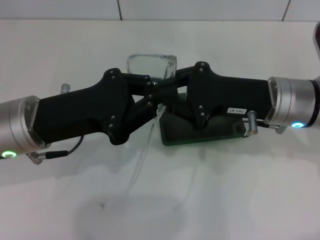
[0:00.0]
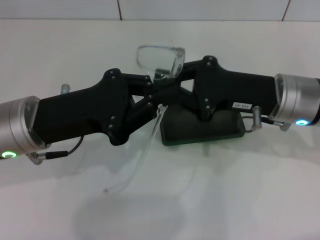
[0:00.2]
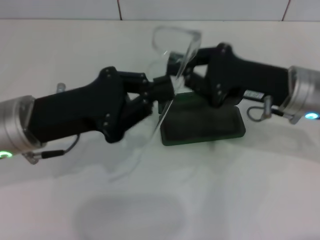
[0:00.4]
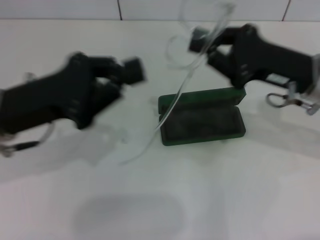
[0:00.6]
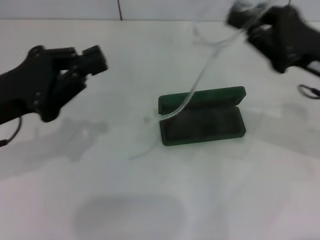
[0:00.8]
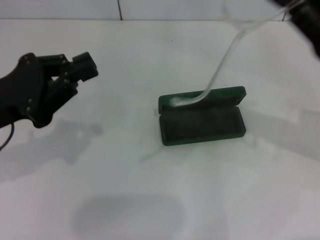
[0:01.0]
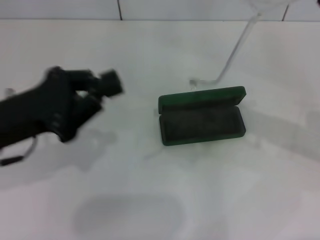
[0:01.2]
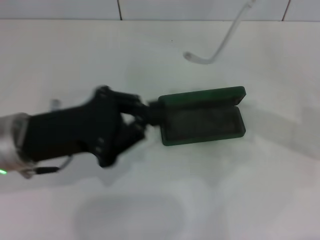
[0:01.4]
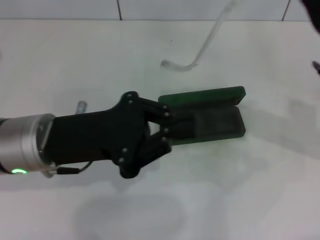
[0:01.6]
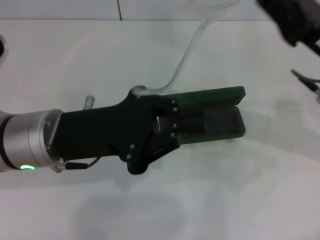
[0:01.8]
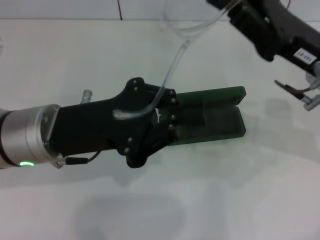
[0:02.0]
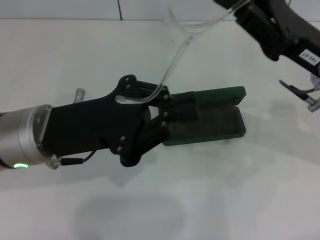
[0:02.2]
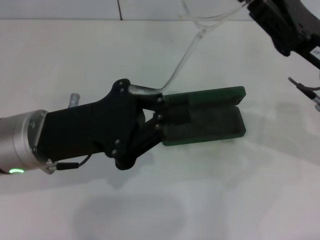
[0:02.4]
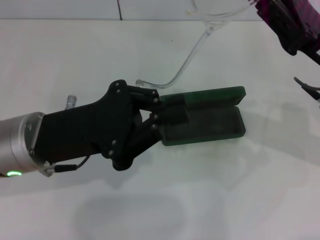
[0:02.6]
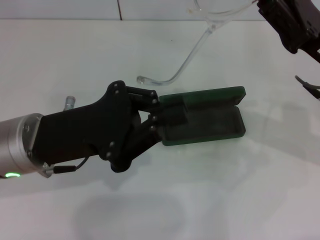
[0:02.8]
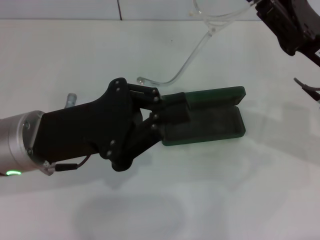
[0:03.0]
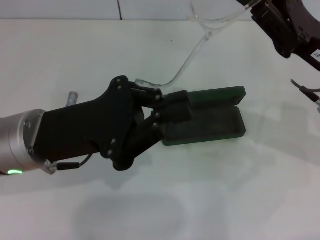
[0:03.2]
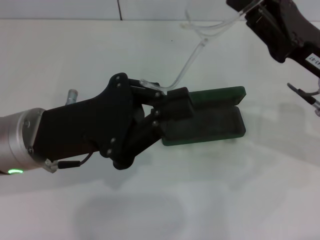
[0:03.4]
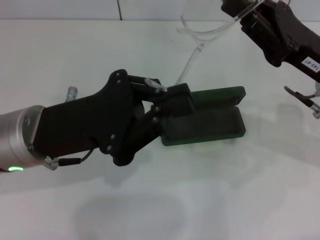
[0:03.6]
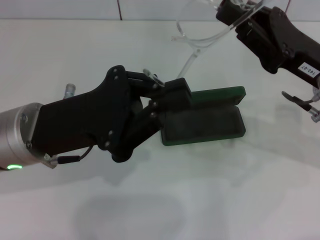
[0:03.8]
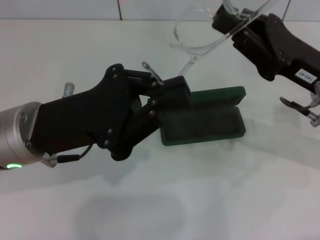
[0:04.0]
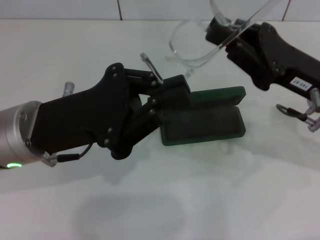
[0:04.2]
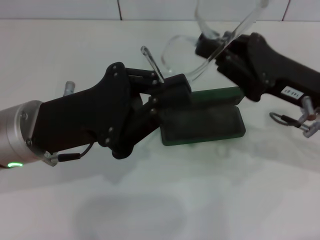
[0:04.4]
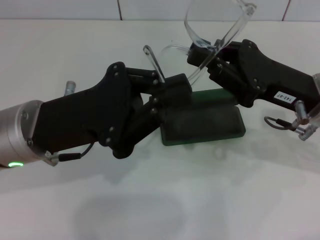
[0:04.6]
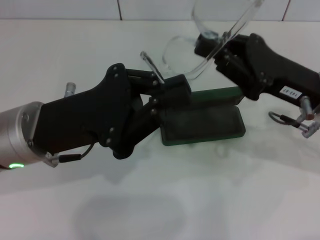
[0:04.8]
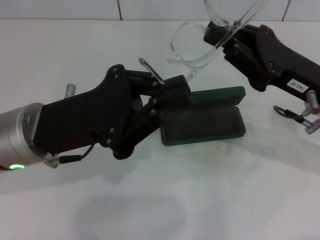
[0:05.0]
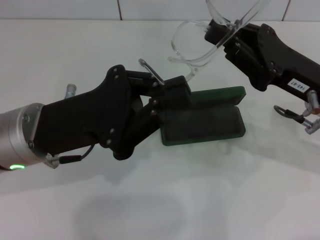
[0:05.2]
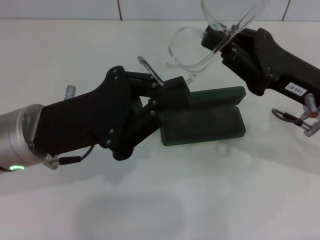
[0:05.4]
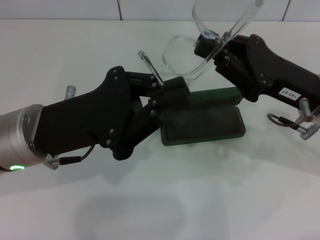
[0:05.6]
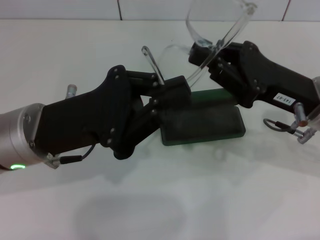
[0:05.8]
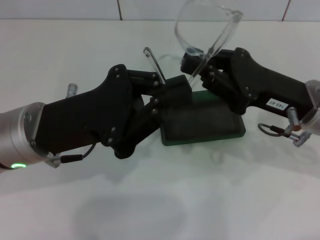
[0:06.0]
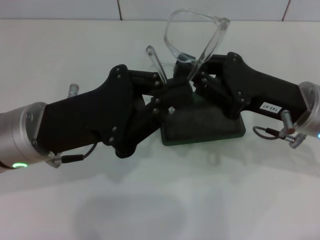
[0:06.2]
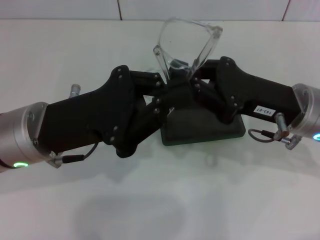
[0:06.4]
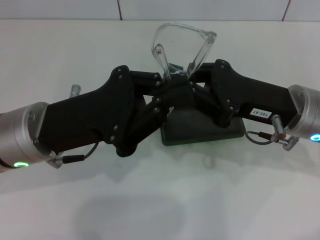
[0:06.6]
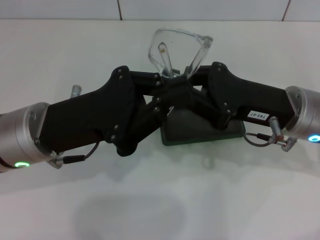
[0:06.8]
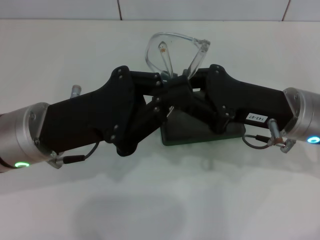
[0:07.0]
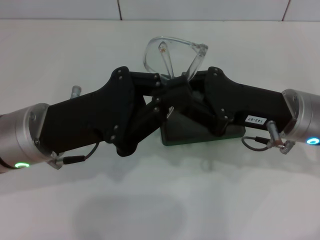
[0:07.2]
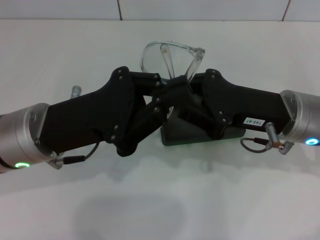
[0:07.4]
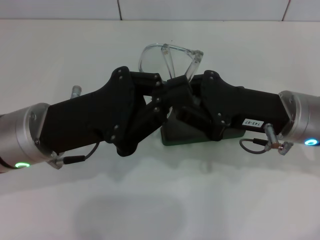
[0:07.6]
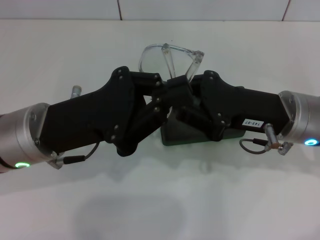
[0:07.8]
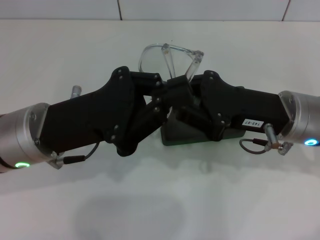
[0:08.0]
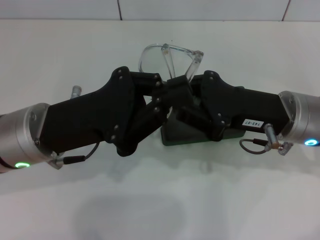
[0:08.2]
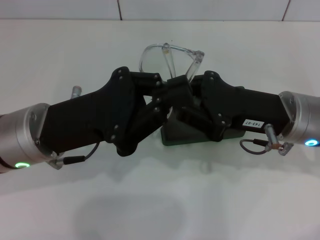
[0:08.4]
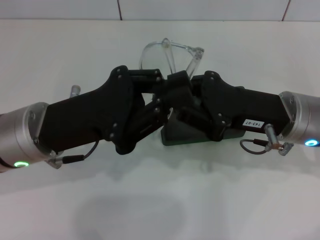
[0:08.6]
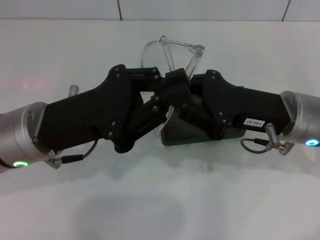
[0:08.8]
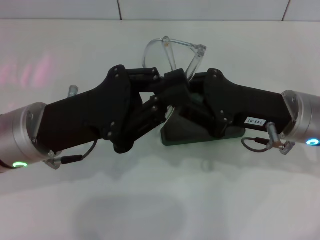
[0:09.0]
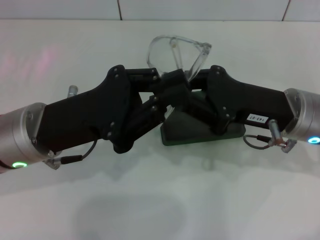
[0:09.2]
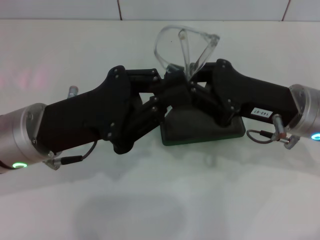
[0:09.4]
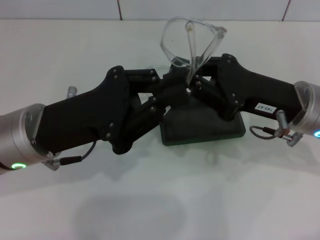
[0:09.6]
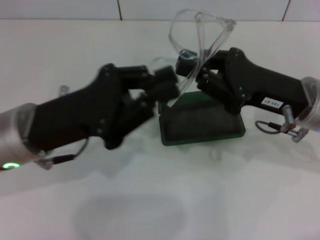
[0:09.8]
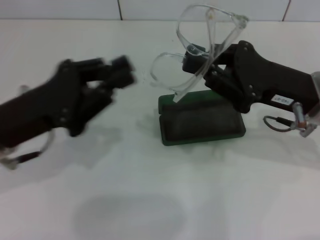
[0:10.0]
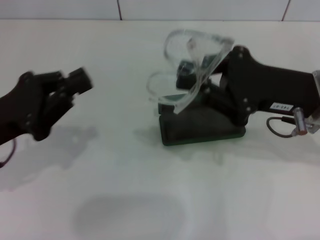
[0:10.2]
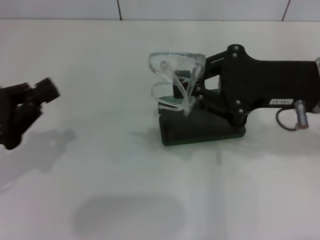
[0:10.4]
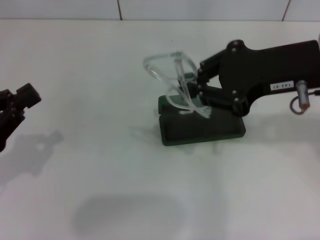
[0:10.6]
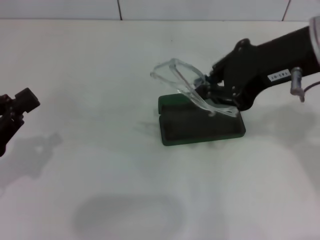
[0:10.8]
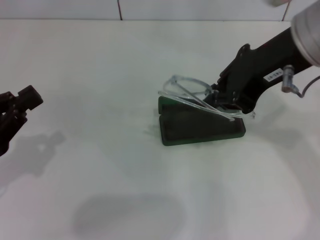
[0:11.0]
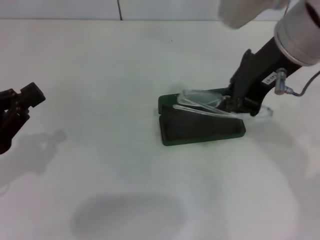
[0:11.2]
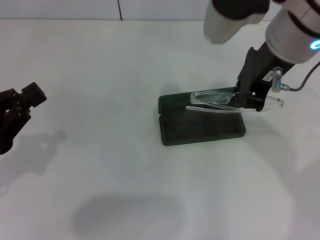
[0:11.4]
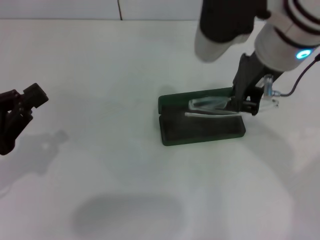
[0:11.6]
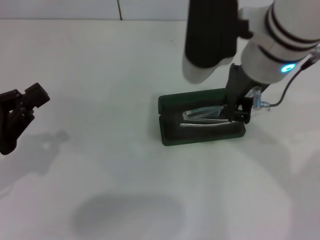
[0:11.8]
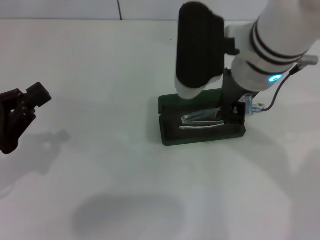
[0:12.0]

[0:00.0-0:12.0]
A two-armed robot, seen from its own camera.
Step, 0:00.0 to 0:07.4: Fold the frame with your left hand.
0:00.0 to 0:01.6: The left gripper moves approximately 5 cm to the left and comes back; the right gripper moves to the right, some 5 cm.
0:01.6 to 0:03.0: There are only small adjustments of the grippers.
0:04.4 to 0:06.0: Both grippers stay put.
0:06.0 to 0:07.6: The grippers make only small movements.
0:07.6 to 0:09.0: The two grippers keep their place.
0:09.0 to 0:10.4: The left gripper moves to the left, about 15 cm. The right gripper shifts approximately 5 cm upward.
0:10.4 to 0:12.0: The right gripper heads to the left, covering some 10 cm.

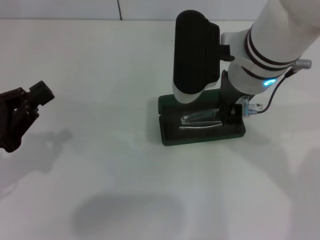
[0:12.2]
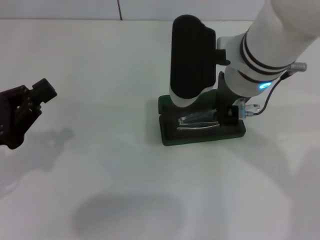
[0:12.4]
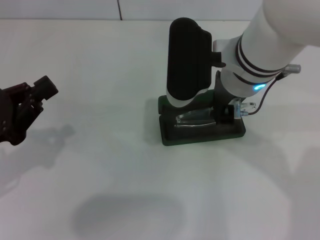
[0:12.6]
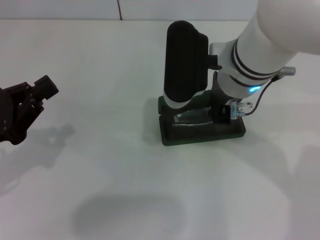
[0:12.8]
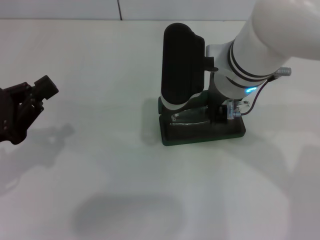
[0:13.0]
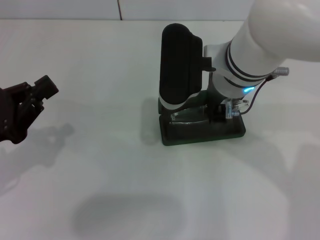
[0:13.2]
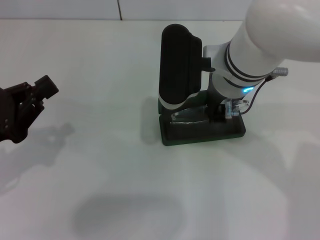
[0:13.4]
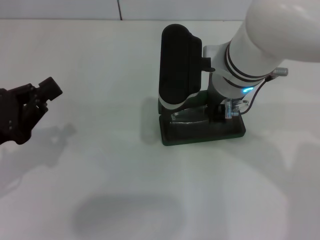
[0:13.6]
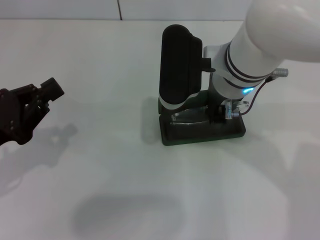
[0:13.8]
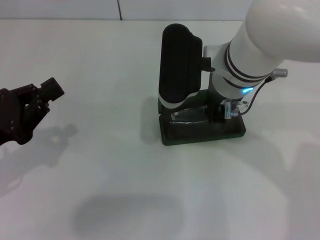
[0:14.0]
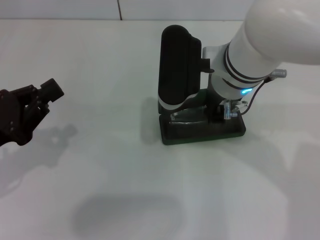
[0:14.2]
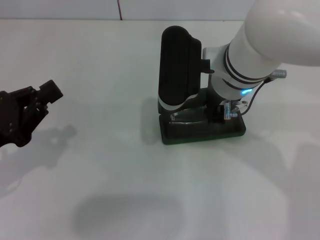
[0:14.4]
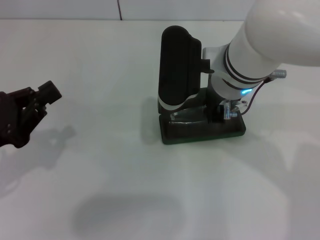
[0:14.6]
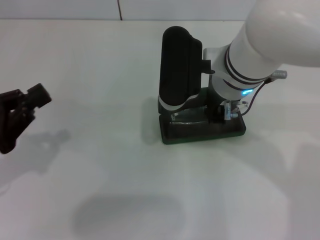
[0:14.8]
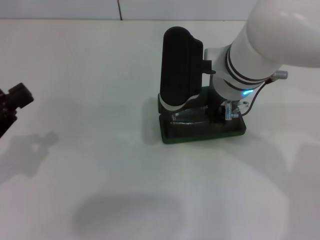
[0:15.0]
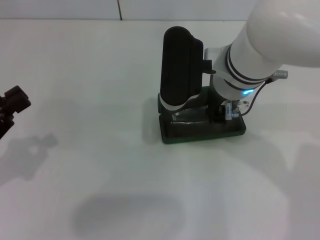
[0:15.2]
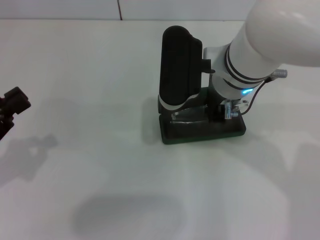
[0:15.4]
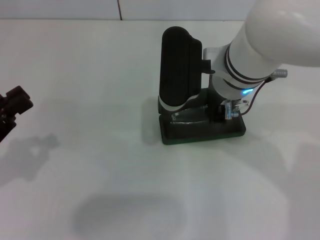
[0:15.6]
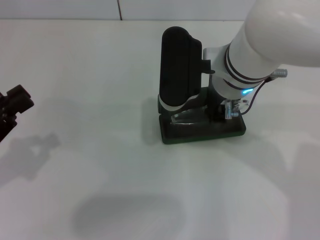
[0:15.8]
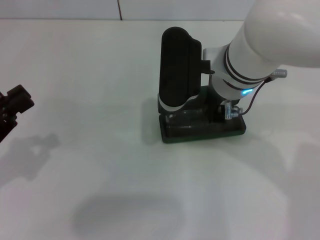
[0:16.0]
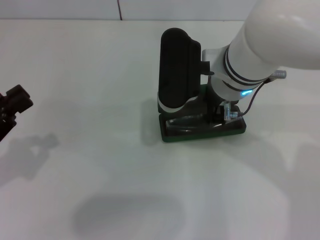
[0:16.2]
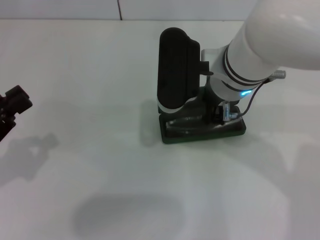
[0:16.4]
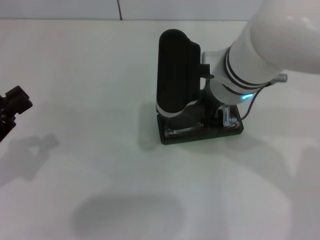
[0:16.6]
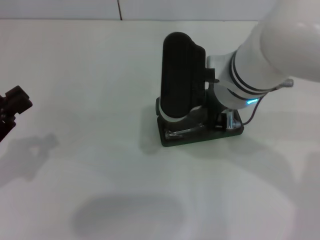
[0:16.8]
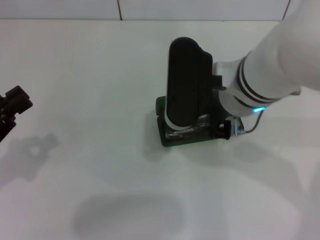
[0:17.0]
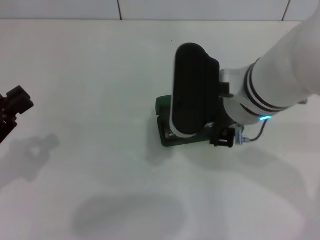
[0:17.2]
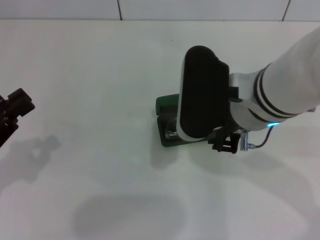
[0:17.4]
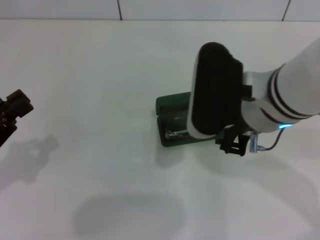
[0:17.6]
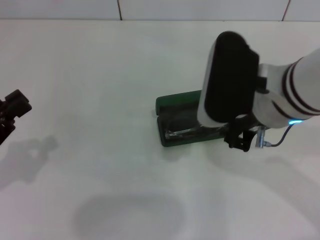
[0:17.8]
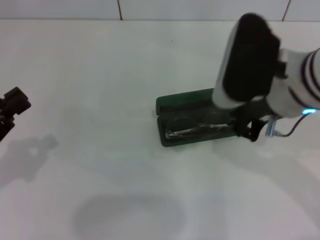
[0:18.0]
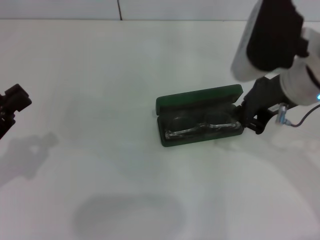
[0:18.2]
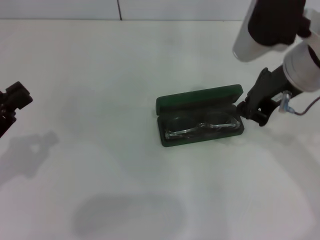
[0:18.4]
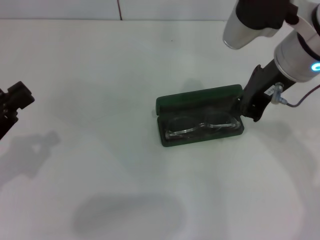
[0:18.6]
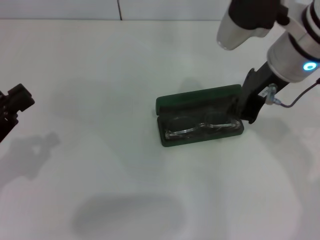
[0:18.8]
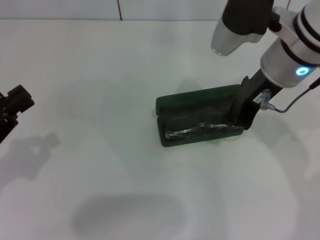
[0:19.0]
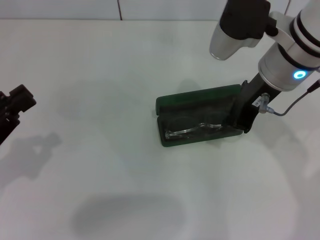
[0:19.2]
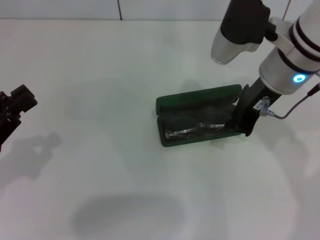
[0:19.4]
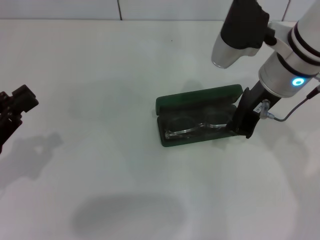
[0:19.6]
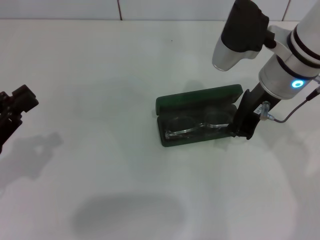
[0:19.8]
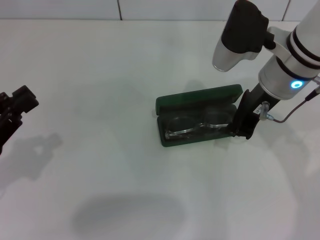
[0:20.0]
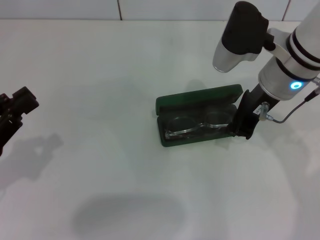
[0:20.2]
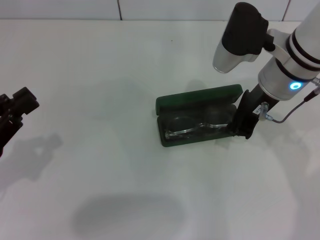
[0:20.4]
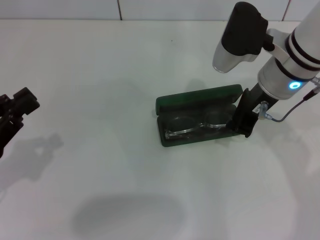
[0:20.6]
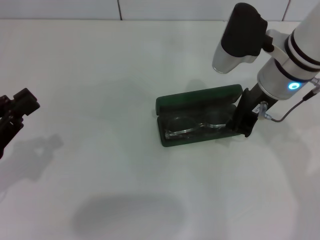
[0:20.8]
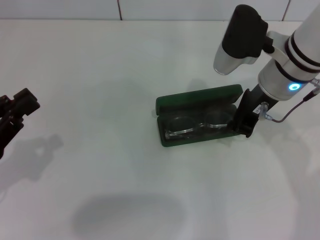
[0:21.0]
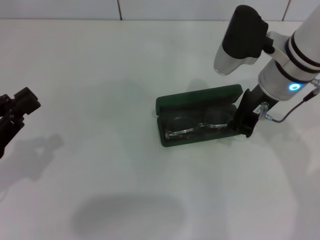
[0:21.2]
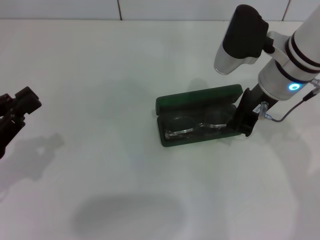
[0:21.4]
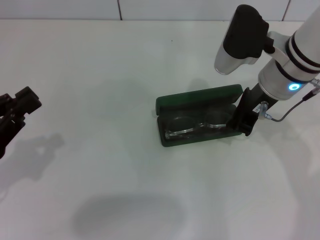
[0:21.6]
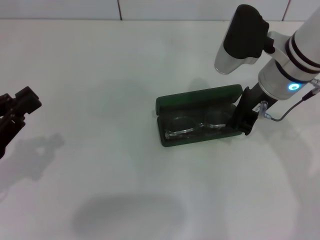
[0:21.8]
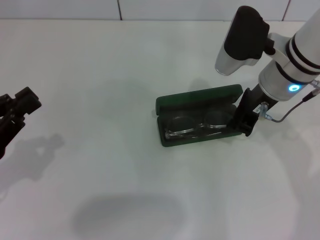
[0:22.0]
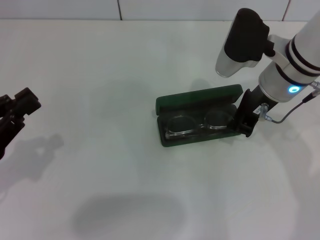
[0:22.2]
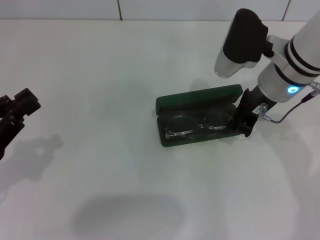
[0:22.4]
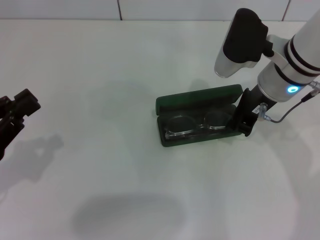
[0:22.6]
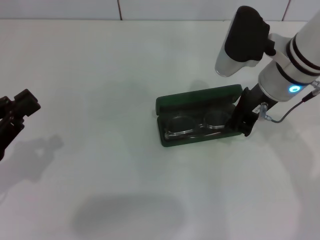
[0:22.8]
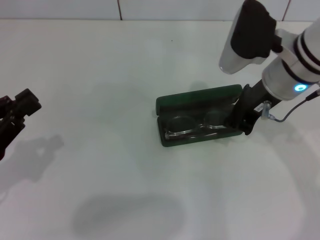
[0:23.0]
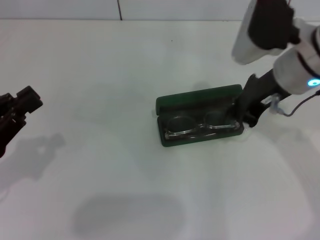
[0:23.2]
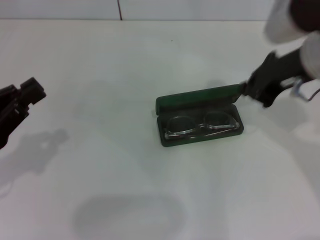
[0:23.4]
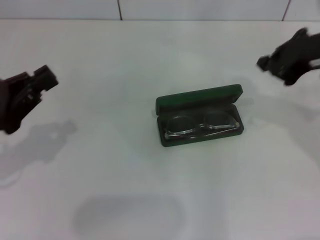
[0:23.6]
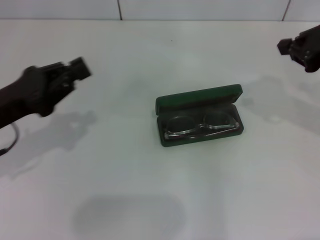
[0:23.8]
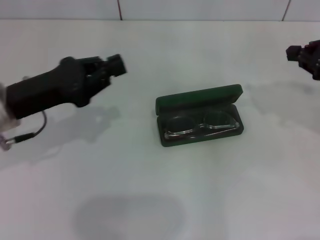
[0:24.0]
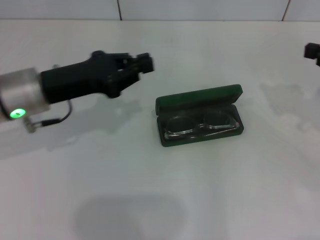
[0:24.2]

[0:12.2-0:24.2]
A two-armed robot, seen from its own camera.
Step, 0:12.2 to 0:22.6: Put the glasses into the case with your right hand.
0:12.2 to 0:16.6: There are only small adjustments of the grippers.
0:16.6 to 0:18.2: The right gripper shifts approximately 10 cm to the right.
0:18.2 to 0:19.8: The right gripper shifts approximately 5 cm forward.
0:19.8 to 0:21.2: The grippers stay close to where they were, moving slightly.
0:21.2 to 0:22.6: Both grippers stay about where they are.
0:22.6 to 0:24.2: The right gripper shifts some 20 cm to the right, while the left gripper travels forward and to the right by roughly 15 cm.
